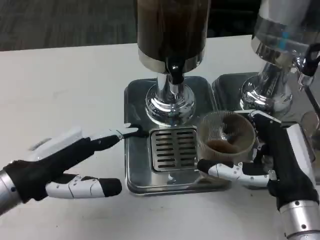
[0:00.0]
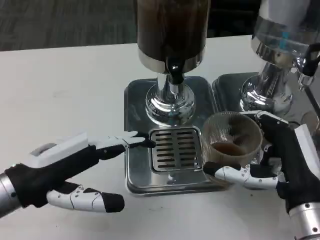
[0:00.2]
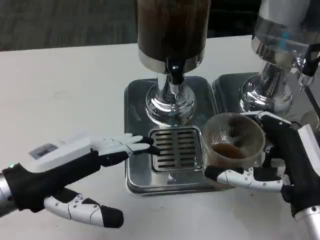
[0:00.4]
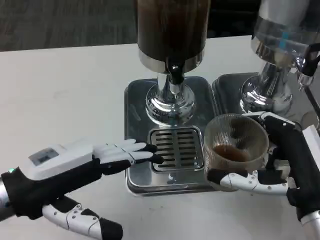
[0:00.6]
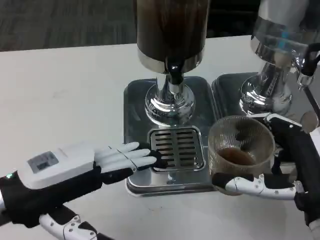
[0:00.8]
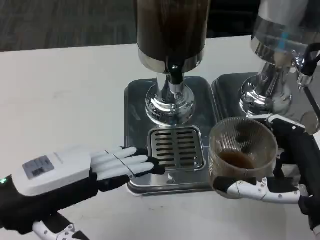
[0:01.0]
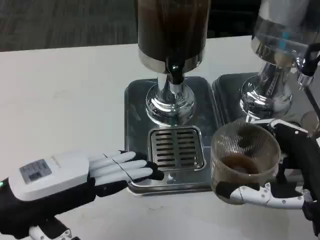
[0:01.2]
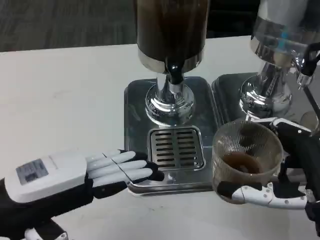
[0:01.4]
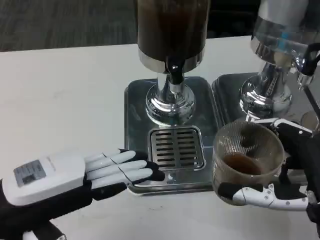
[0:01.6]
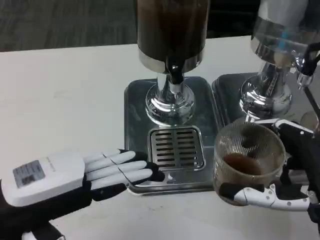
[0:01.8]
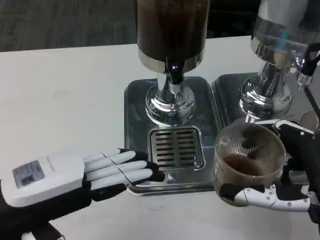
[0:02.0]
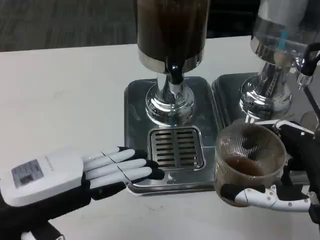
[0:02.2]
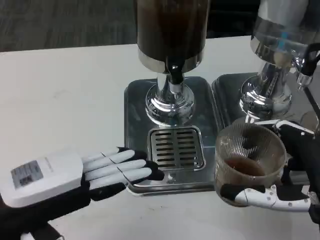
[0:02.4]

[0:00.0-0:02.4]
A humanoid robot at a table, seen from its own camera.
Task of the whole recording: Grasp the cup under the faucet to collect the drink, then remove the cup.
0:00.0 to 0:01.2: The right hand moves approximately 5 cm.
0:01.2 to 0:02.4: The two hands keep their place.

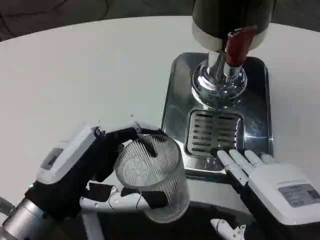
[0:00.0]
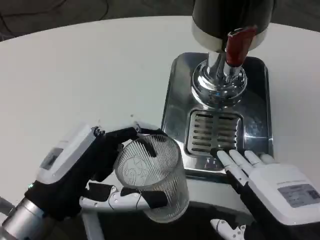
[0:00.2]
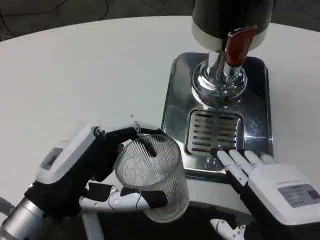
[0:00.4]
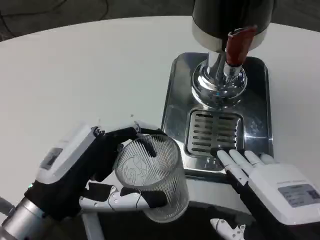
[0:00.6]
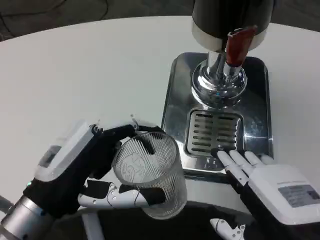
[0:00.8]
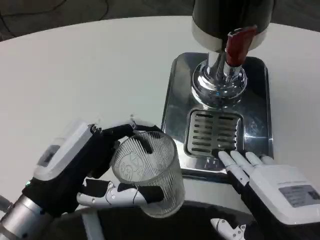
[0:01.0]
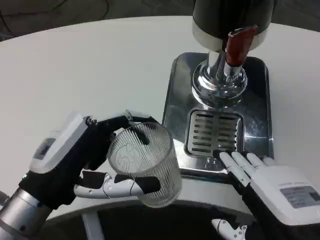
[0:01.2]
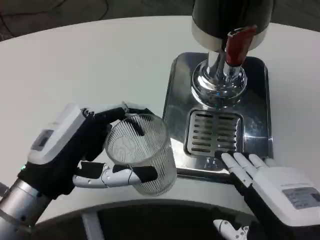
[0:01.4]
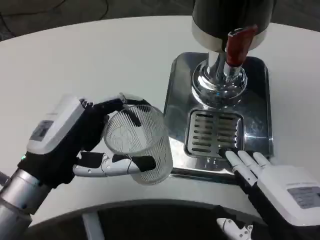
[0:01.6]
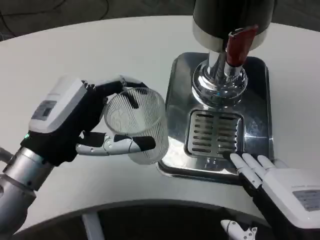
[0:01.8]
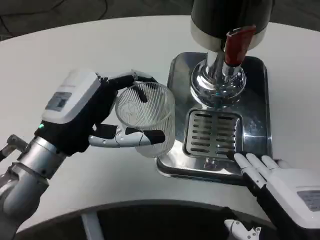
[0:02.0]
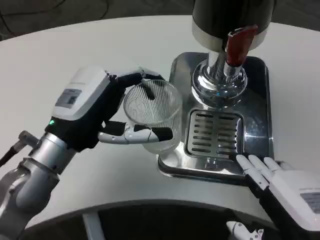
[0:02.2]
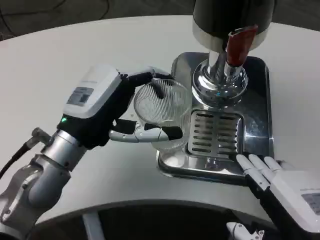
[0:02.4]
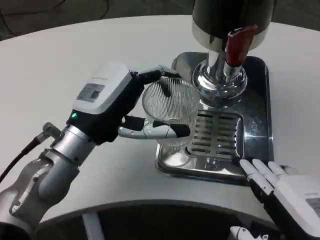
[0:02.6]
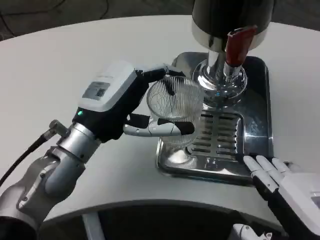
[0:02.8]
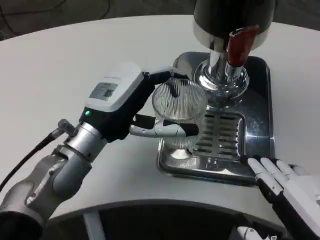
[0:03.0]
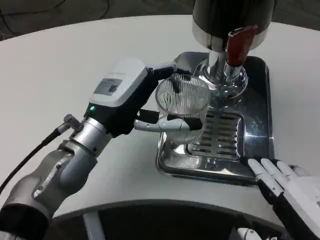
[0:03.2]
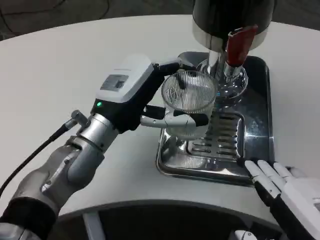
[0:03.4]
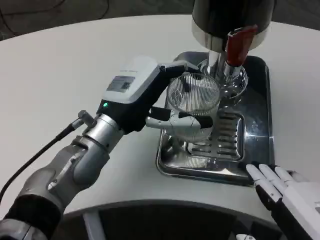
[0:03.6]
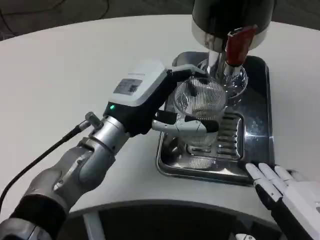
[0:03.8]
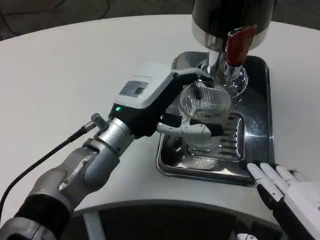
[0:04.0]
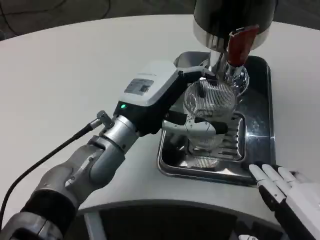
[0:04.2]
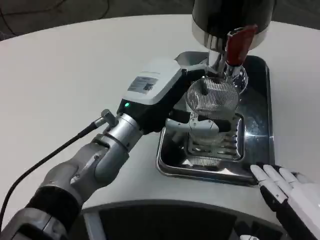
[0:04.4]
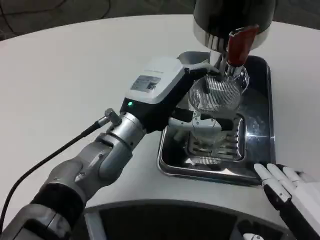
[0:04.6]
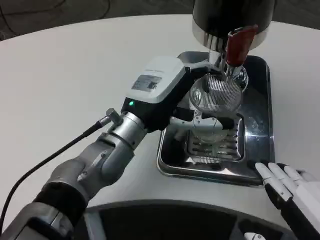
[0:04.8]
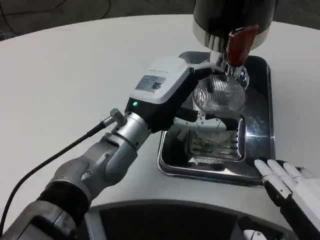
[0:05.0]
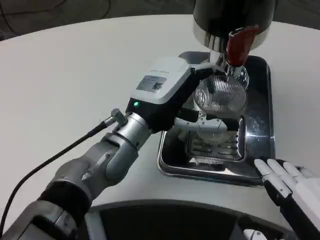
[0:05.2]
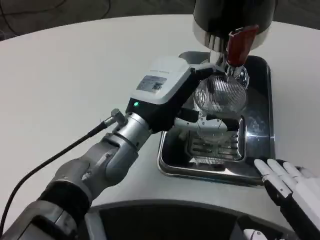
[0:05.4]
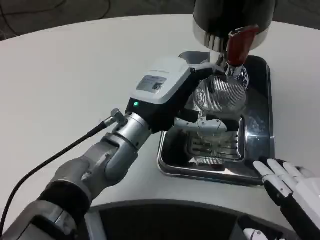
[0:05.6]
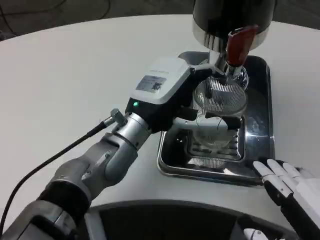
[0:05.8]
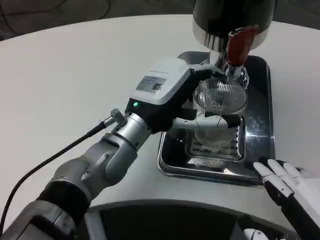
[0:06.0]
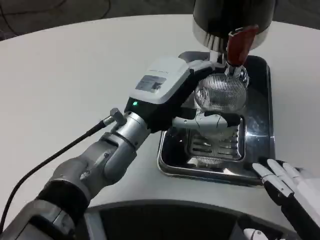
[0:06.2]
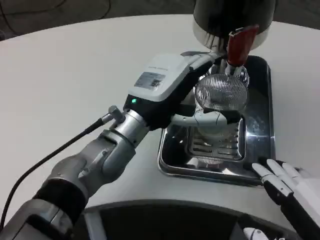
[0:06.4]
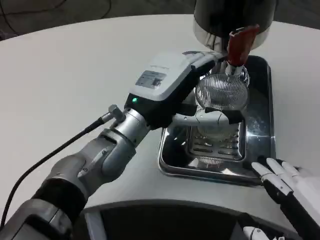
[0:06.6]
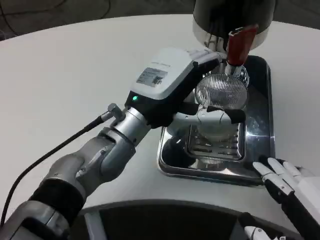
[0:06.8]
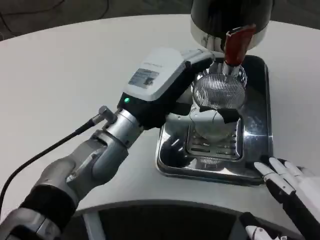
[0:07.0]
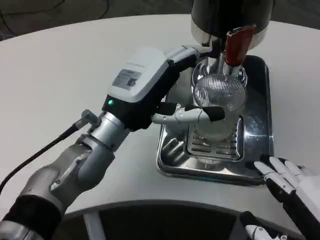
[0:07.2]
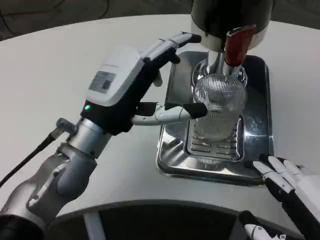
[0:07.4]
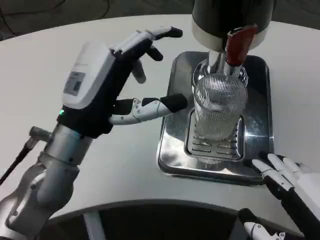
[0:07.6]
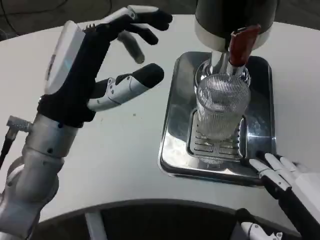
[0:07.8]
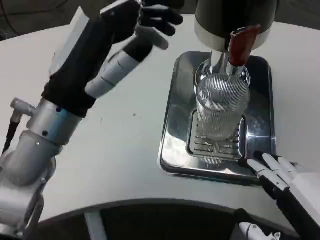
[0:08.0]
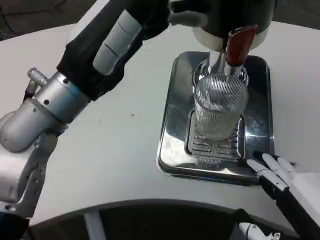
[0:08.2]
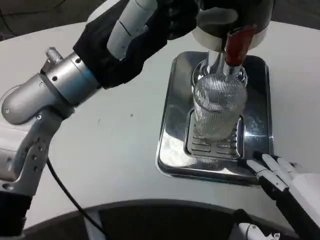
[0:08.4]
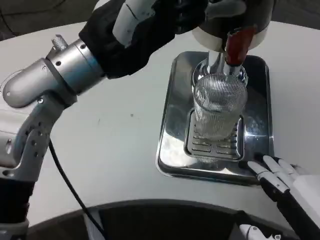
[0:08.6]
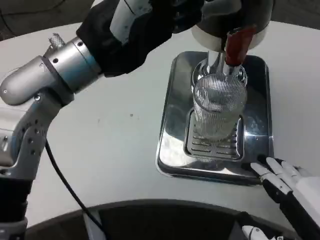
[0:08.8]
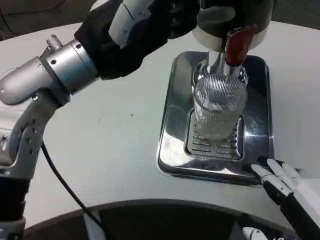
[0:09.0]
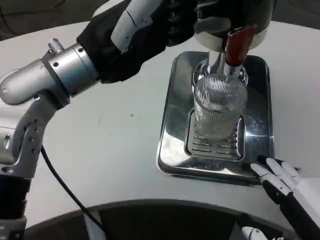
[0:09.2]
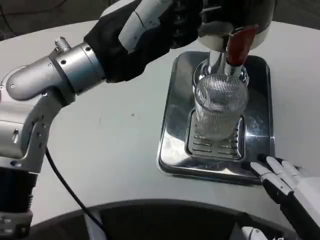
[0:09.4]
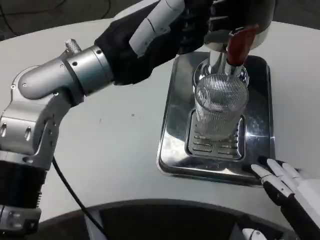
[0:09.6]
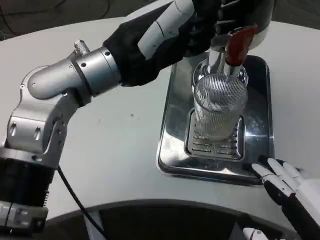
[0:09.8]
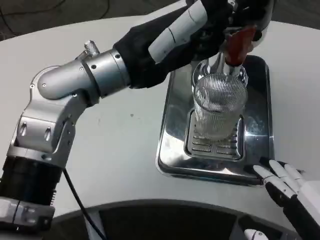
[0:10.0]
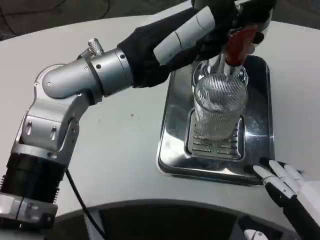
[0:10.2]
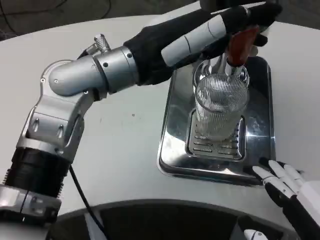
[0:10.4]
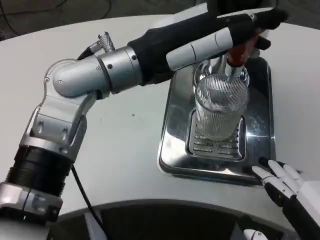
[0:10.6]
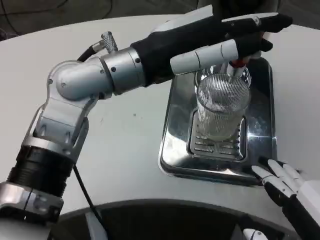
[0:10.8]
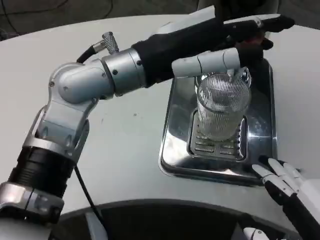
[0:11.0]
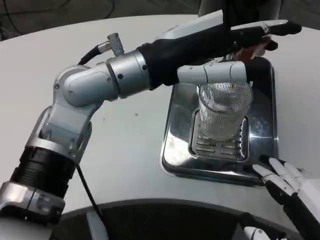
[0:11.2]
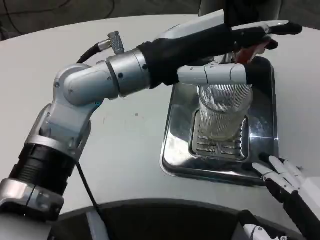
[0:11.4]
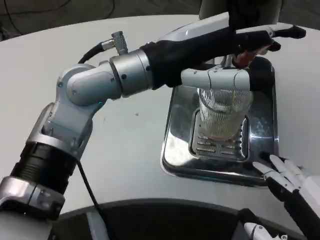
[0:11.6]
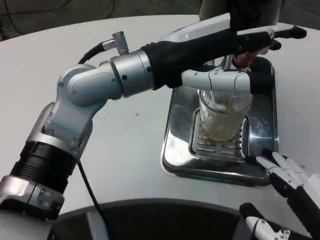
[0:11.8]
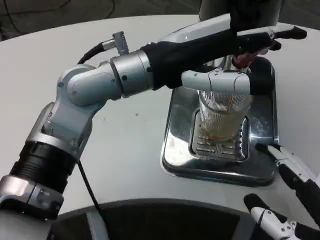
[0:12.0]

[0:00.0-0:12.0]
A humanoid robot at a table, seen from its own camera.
Task of the whole recording: Grasp the cup under the faucet to collect the drink, then remove the cup.
0:01.6 to 0:03.0: The left hand travels forward and to the right by about 10 cm.
0:03.0 to 0:04.4: The left hand shifts by roughly 5 cm.
0:04.4 to 0:06.0: Neither hand changes place.
0:06.0 to 0:07.6: The left hand moves to the left and backward, about 10 cm.
0:07.6 to 0:09.0: The left hand travels upward by some 10 cm.

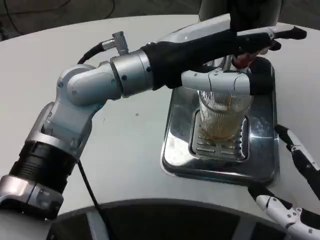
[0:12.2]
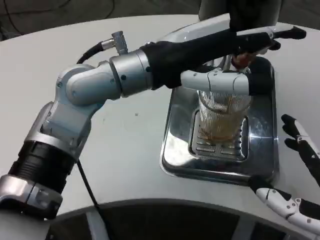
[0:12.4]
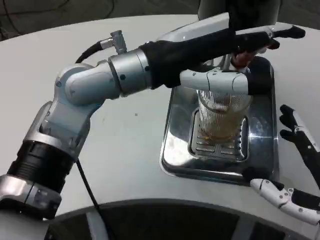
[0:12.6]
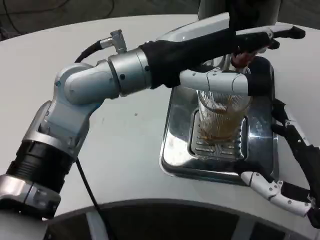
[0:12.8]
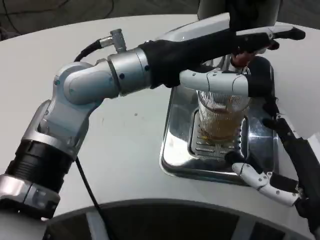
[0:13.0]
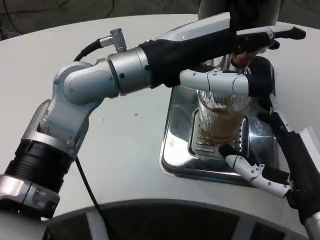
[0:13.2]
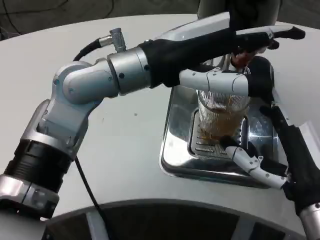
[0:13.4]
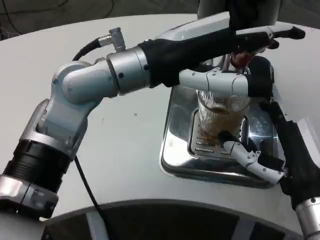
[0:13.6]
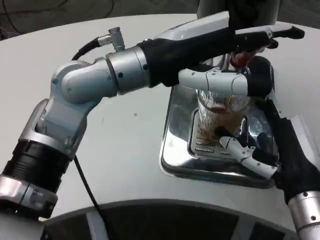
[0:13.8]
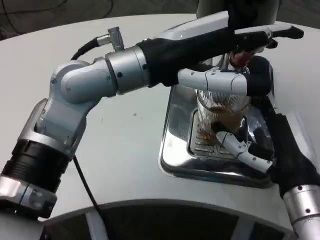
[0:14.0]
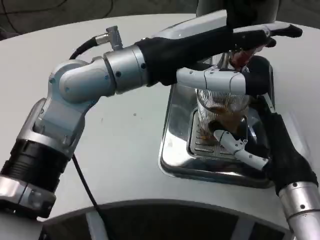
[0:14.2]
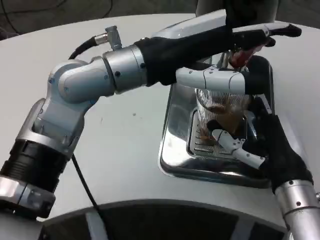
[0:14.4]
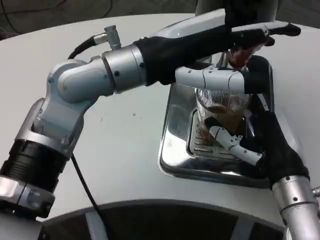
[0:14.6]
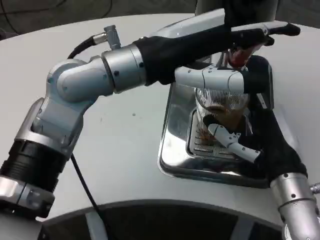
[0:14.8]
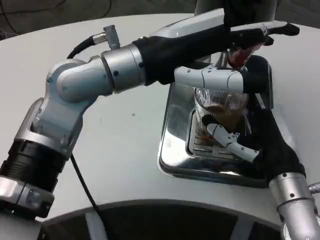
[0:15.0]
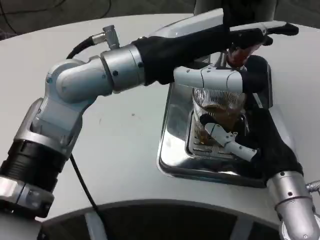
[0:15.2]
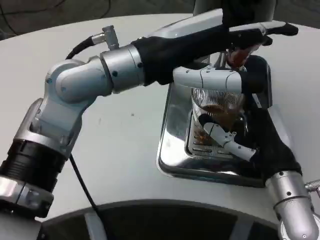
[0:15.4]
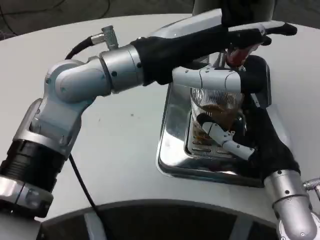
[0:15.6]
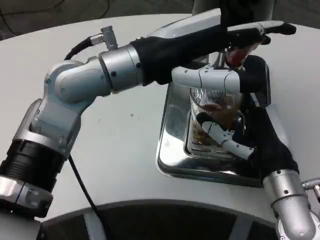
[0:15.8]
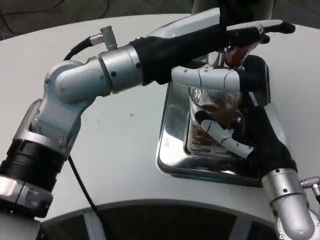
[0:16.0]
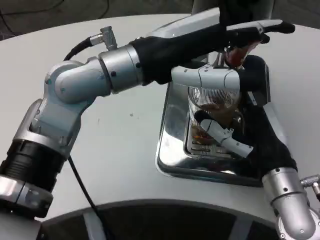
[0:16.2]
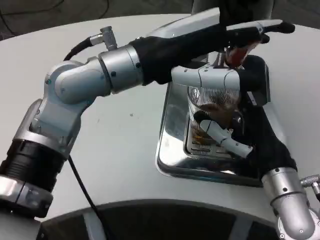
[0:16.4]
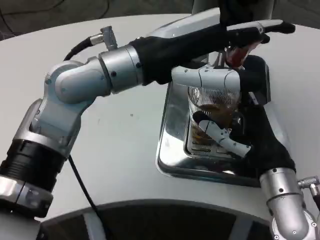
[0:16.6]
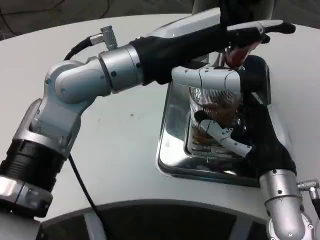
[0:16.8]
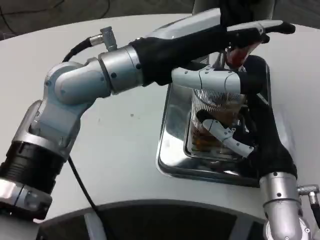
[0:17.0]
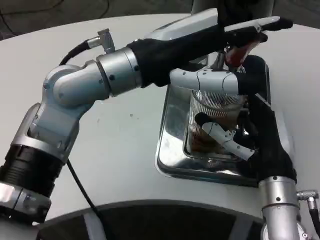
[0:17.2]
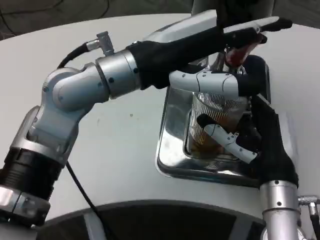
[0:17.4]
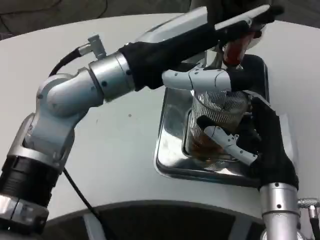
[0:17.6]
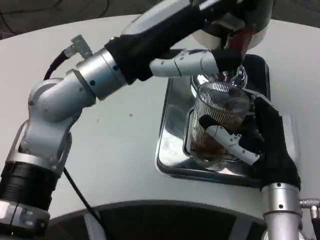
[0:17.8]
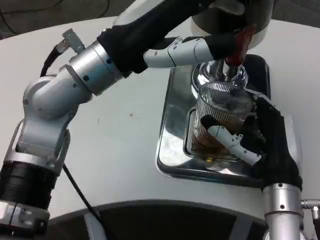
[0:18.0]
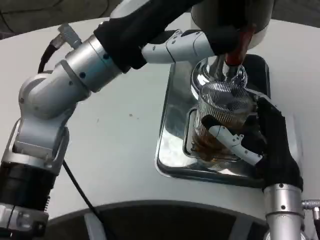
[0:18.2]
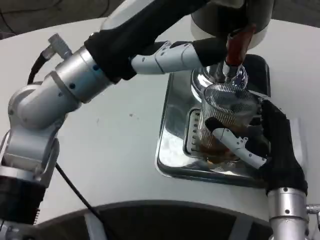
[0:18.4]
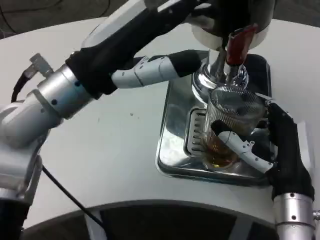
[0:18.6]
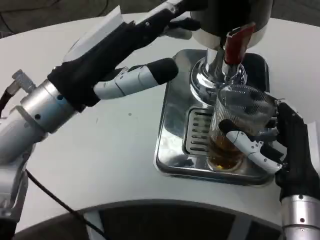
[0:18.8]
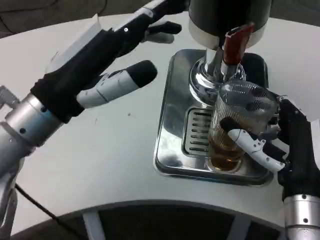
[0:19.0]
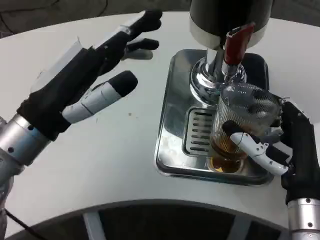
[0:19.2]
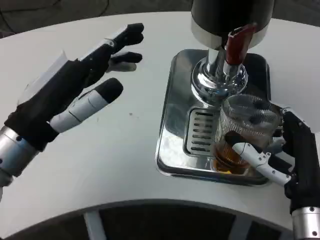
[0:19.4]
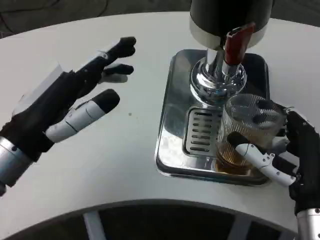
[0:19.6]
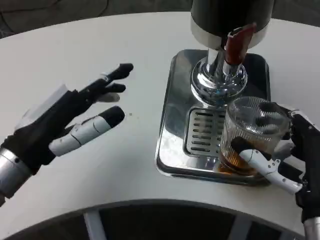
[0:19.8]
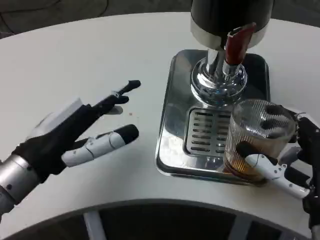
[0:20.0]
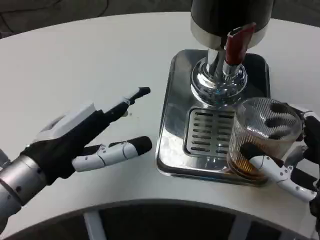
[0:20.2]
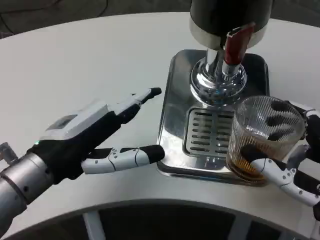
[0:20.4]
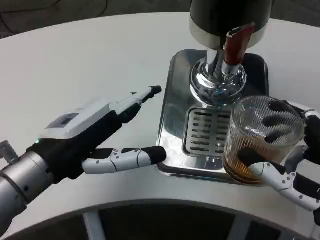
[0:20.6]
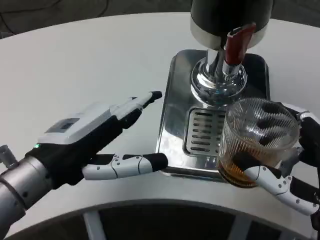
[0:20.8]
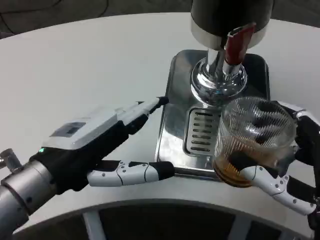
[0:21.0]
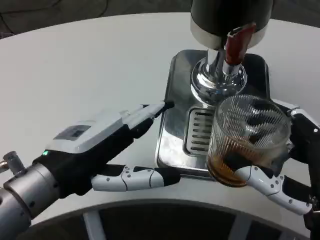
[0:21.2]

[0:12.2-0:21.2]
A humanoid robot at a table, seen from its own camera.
Task of the whole recording: Grasp the cup under the faucet to collect the drink, then remove the cup.
0:12.2 to 0:13.8: The right hand is displaced forward by roughly 10 cm.
0:15.2 to 0:16.6: Both hands stay about where they are.
0:18.2 to 0:19.8: The right hand shifts about 5 cm backward. The left hand moves downward, to the left and backward, some 15 cm.
0:19.8 to 0:21.2: The right hand shifts by about 5 cm; the left hand shifts by approximately 5 cm.
